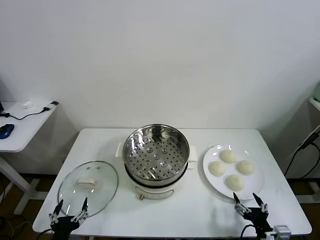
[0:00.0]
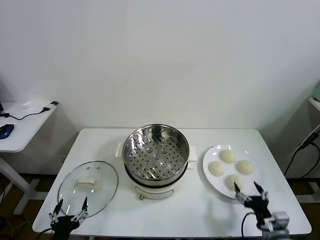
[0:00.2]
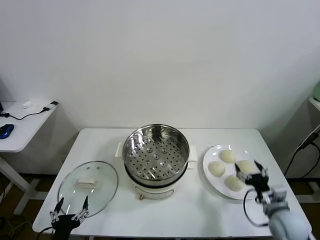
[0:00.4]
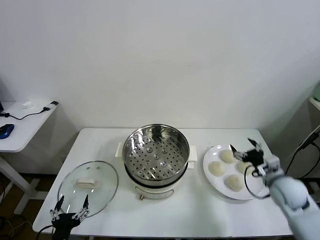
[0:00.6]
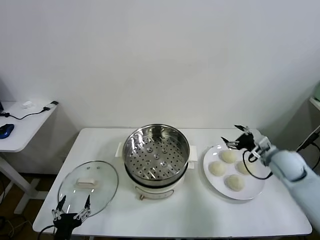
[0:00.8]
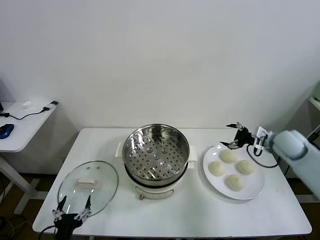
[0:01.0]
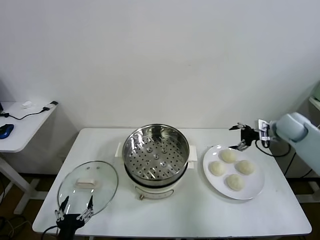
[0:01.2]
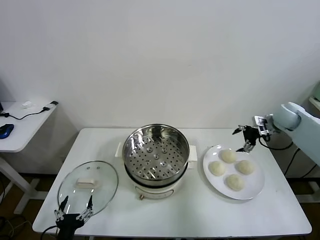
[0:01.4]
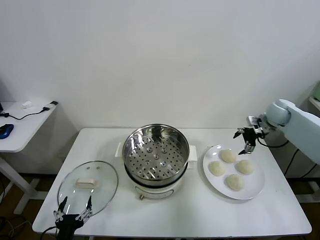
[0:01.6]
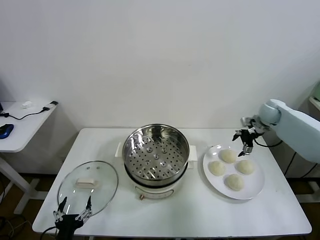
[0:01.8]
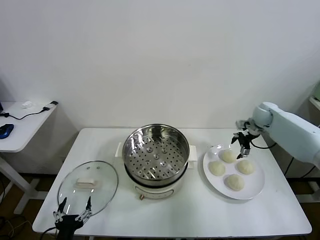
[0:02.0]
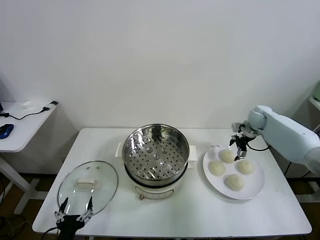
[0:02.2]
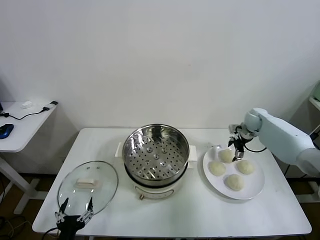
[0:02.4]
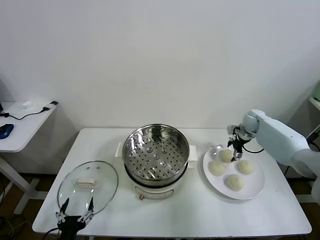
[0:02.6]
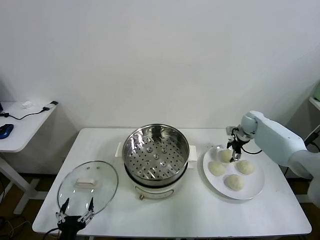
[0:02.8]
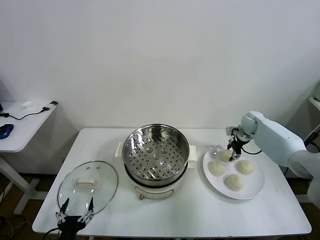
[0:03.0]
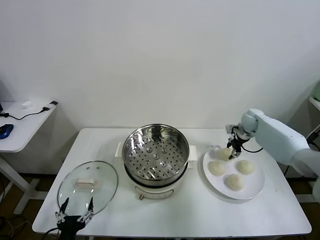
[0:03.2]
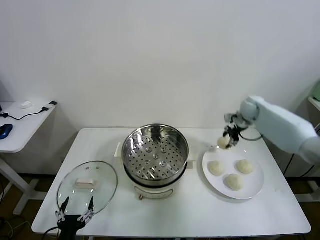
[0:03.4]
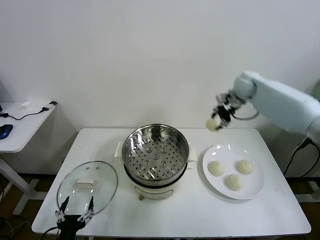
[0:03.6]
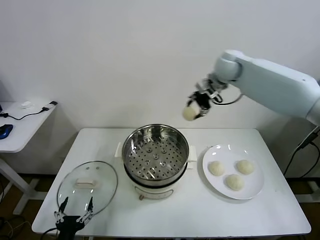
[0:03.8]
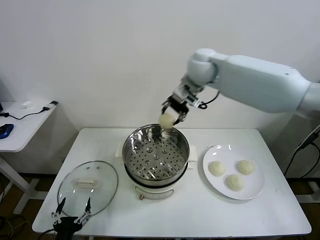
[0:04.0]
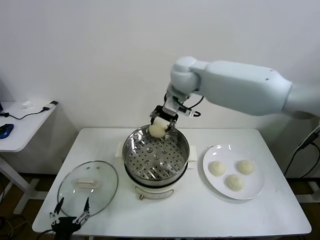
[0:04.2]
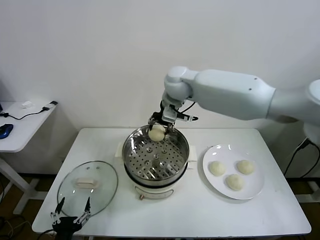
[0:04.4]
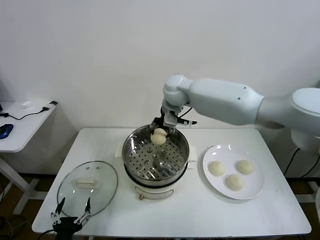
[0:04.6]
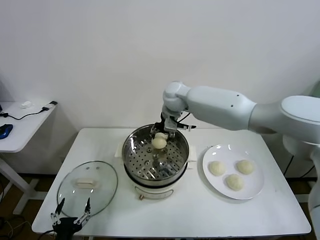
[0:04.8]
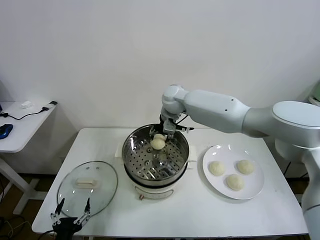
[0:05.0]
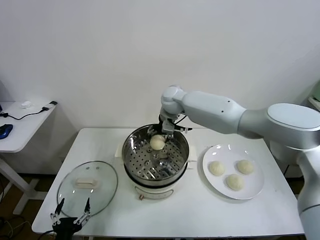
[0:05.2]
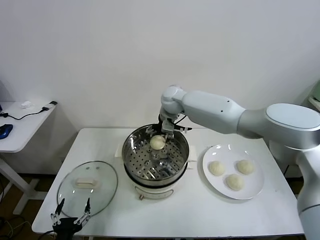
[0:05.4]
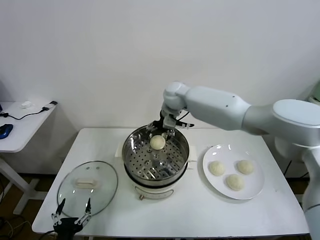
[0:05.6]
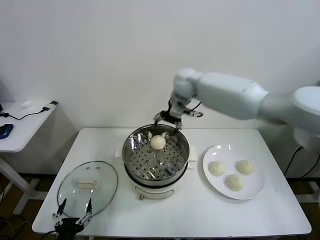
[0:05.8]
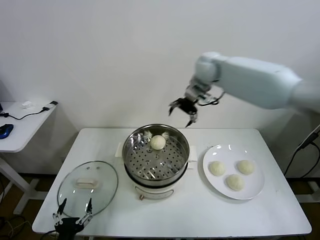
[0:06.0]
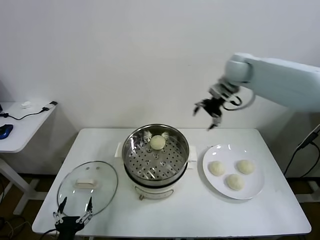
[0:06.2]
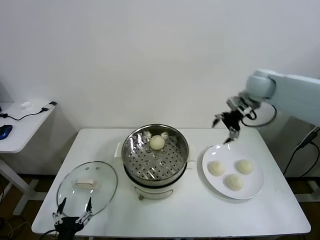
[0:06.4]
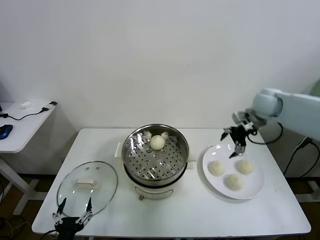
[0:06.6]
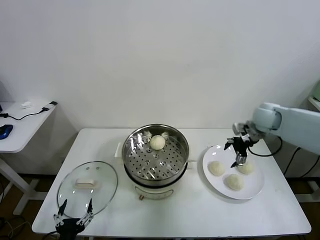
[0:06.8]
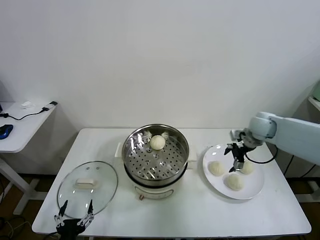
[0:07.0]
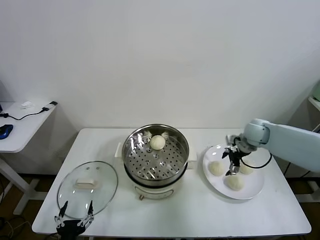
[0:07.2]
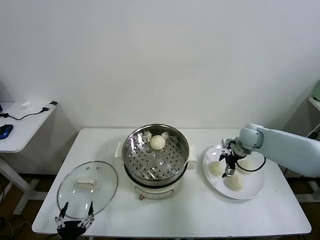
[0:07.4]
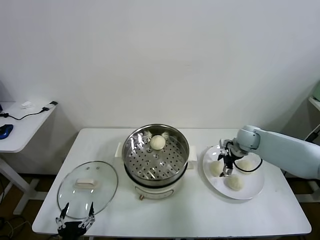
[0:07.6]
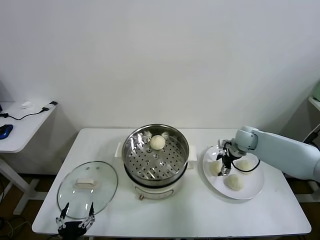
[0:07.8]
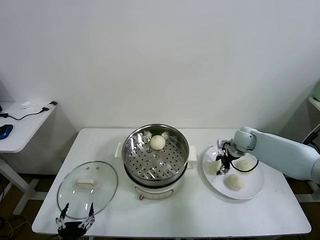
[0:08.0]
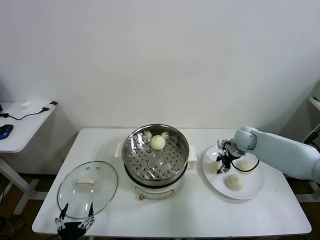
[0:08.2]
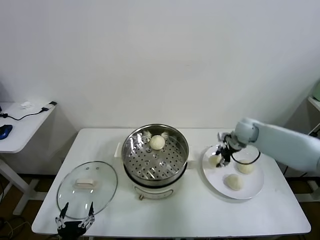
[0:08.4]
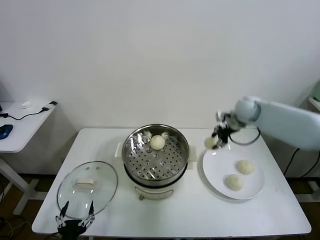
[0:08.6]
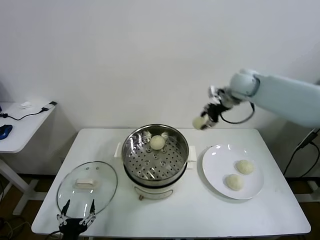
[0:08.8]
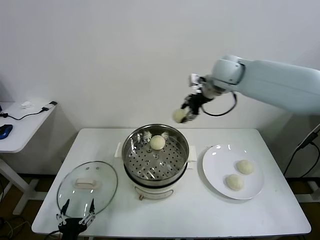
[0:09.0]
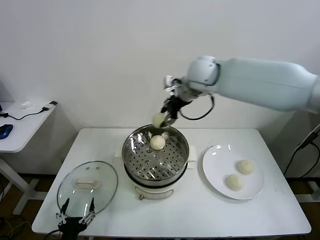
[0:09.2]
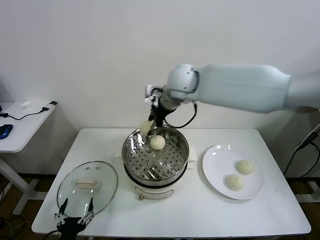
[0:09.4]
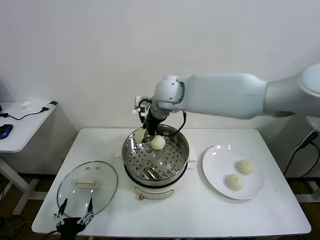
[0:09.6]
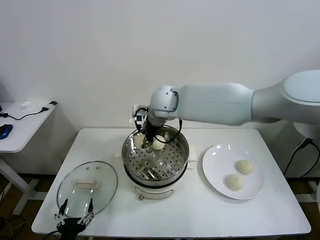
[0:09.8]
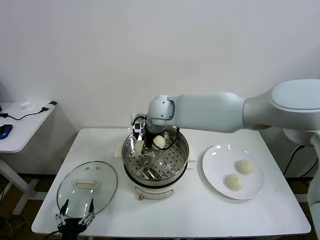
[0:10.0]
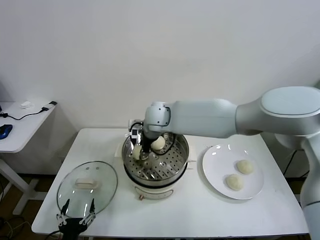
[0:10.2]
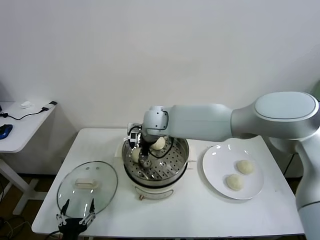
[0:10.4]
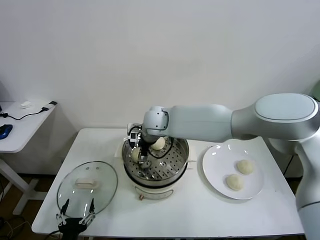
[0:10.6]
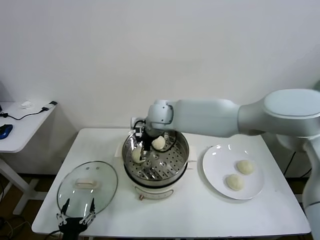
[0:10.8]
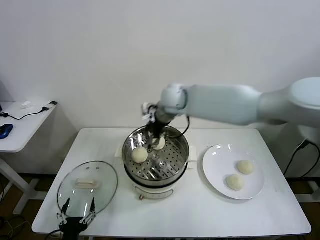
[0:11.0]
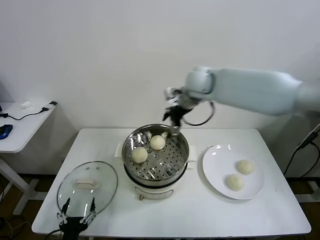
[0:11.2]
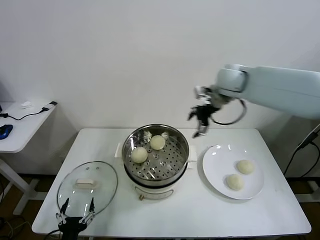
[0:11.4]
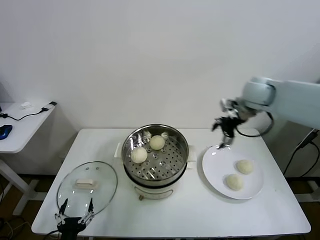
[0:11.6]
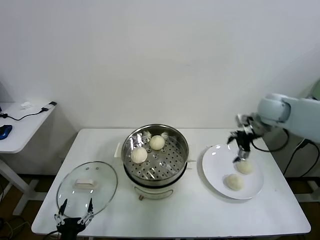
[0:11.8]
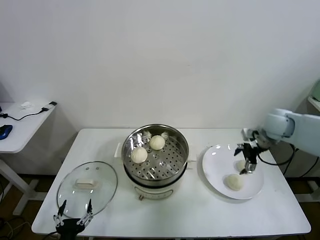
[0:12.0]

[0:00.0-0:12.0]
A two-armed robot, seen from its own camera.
Task of the whole recording: take steamed baozi put them in steamer.
Step, 0.0 to 3.0 s: Grasp the baozi in the plate with right gripper.
Step, 3.2 to 5.6 s: Place the baozi on the steamer with right gripper.
Step, 5.8 to 8.0 s: Grasp the baozi in the plate with right gripper.
Step, 8.2 to 10.6 s: Place the baozi on the steamer with right gripper.
1.6 to 3.0 s: The right gripper shifts approximately 10 cm downward, and closes up.
3.0 to 4.4 s: The right gripper heads to the left and upward, covering about 40 cm.
4.4 to 6.0 s: The right gripper shifts about 10 cm to the right and forward, travels downward and back again, approximately 10 cm each way, and opens up.
6.0 to 7.6 s: The right gripper is displaced downward and to the right by about 30 cm.
7.6 to 9.0 s: The right gripper shifts about 30 cm upward and to the left, and closes its fingers.
9.0 to 10.4 s: The right gripper moves to the left and downward, about 25 cm.
10.4 to 12.0 s: The right gripper moves to the right, roughly 40 cm, and opens.

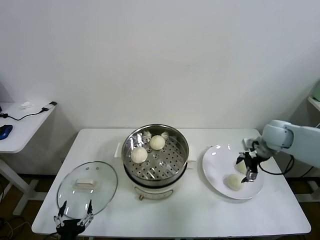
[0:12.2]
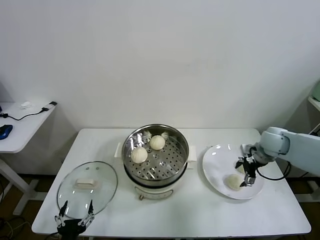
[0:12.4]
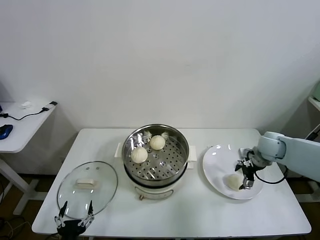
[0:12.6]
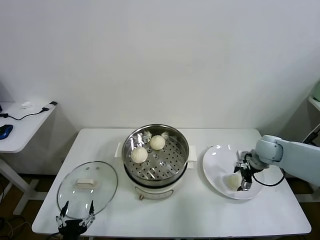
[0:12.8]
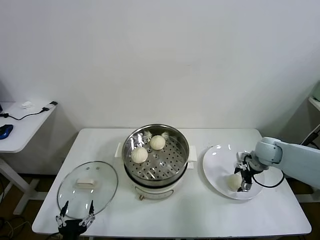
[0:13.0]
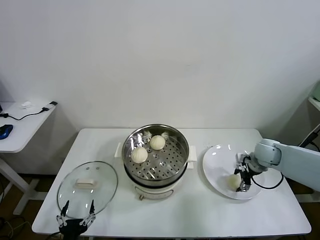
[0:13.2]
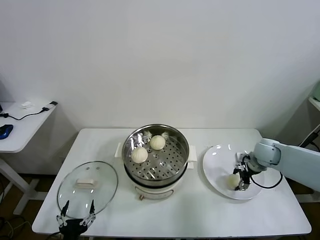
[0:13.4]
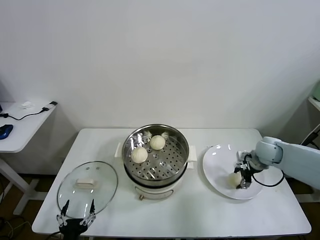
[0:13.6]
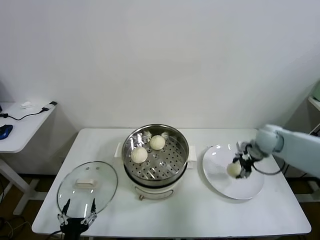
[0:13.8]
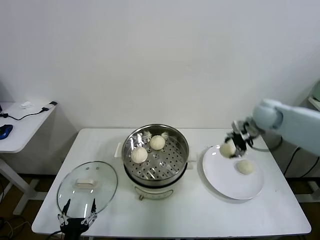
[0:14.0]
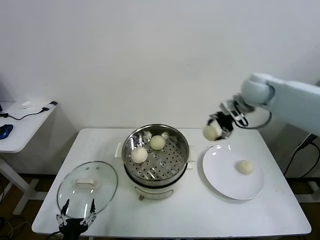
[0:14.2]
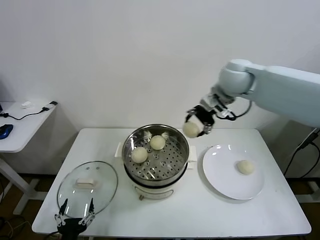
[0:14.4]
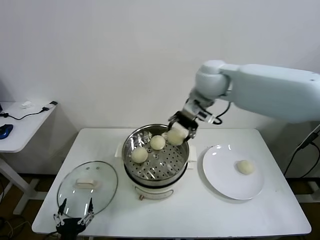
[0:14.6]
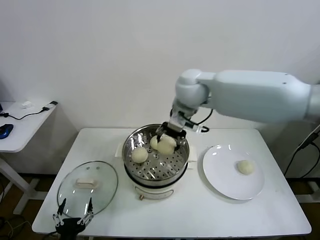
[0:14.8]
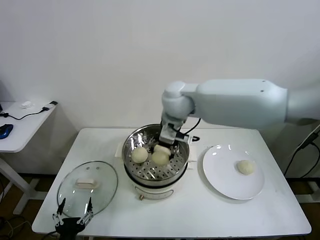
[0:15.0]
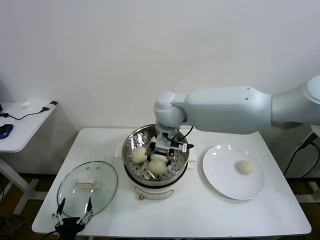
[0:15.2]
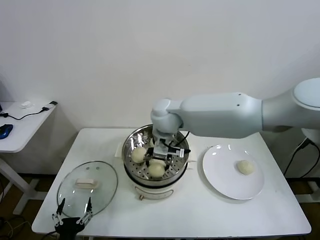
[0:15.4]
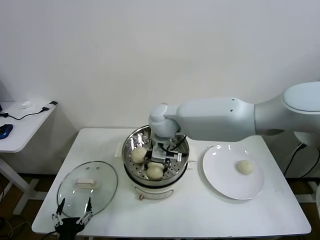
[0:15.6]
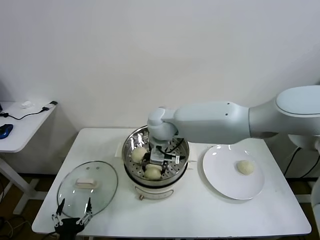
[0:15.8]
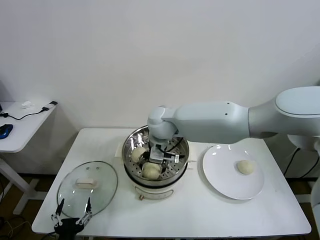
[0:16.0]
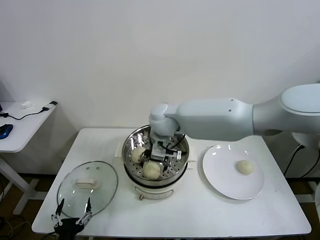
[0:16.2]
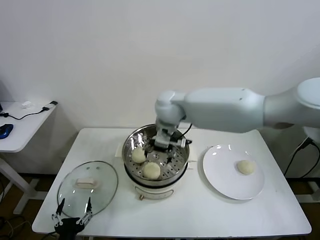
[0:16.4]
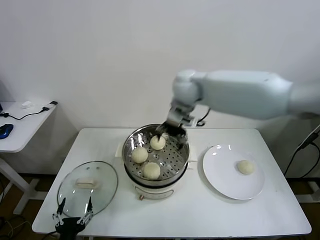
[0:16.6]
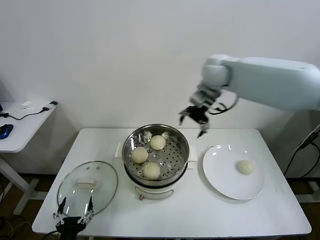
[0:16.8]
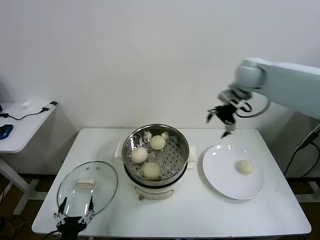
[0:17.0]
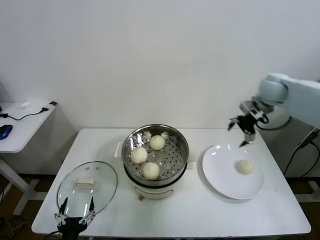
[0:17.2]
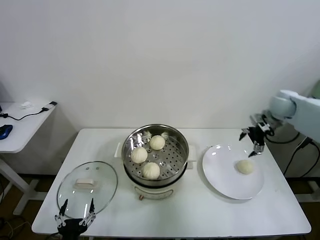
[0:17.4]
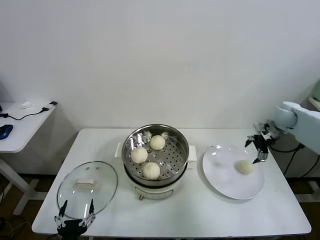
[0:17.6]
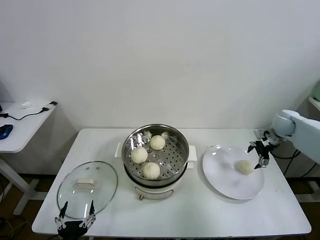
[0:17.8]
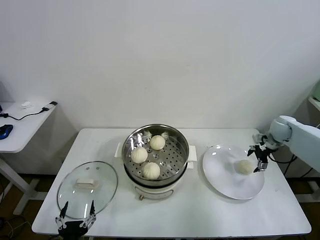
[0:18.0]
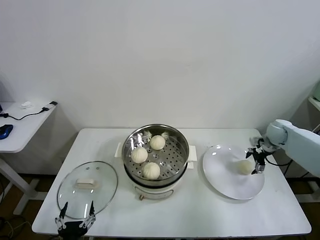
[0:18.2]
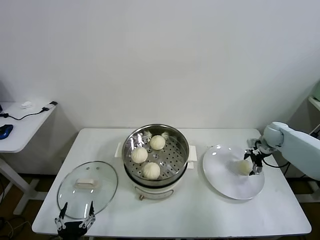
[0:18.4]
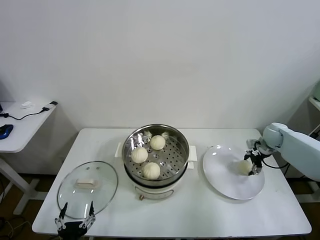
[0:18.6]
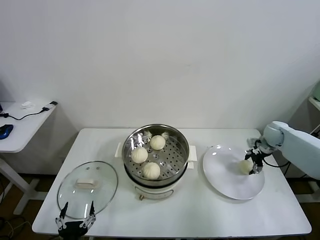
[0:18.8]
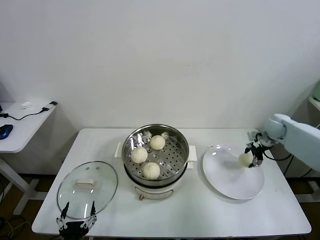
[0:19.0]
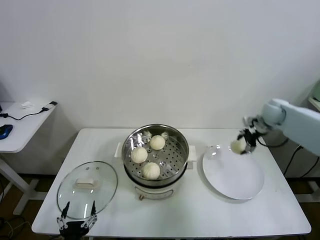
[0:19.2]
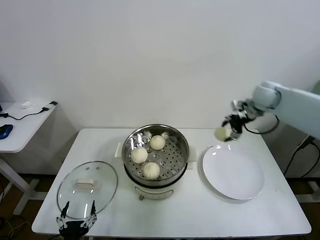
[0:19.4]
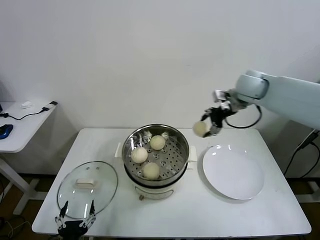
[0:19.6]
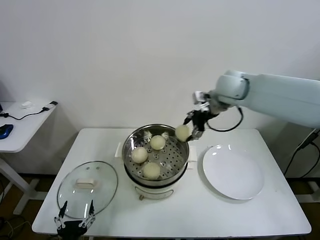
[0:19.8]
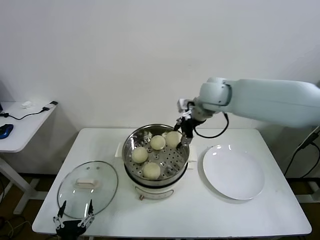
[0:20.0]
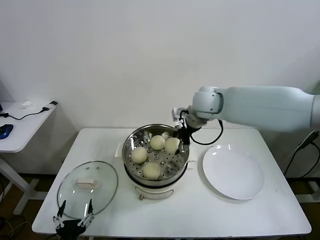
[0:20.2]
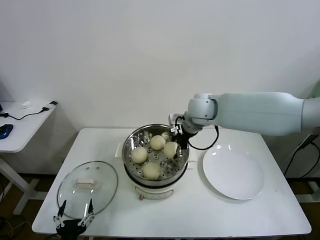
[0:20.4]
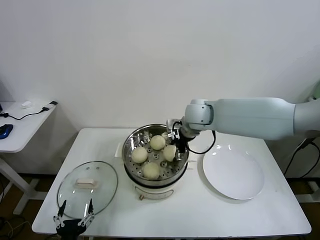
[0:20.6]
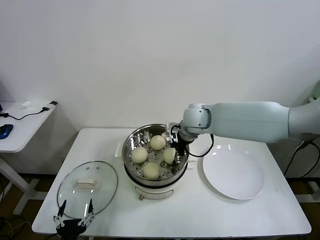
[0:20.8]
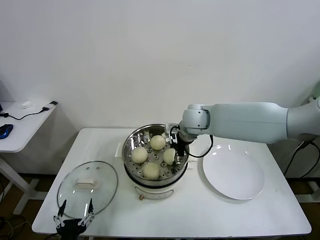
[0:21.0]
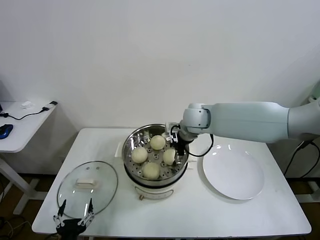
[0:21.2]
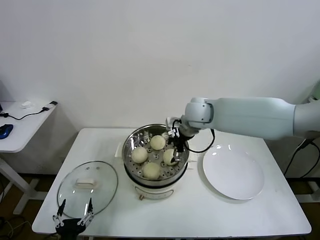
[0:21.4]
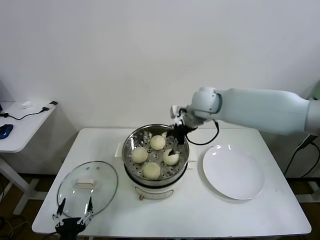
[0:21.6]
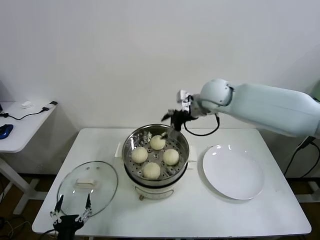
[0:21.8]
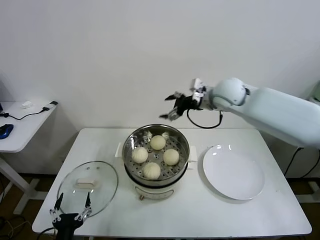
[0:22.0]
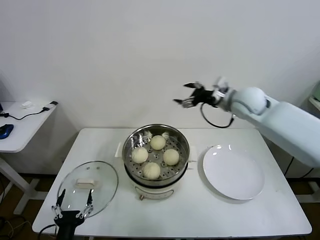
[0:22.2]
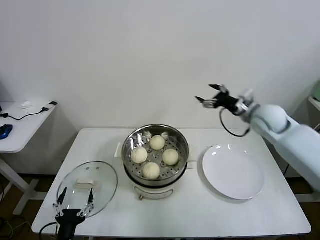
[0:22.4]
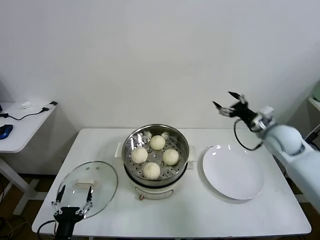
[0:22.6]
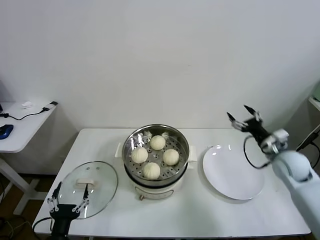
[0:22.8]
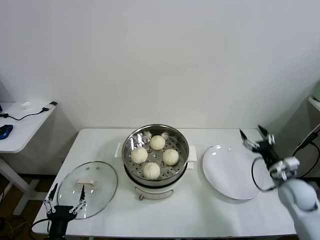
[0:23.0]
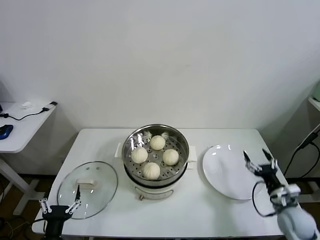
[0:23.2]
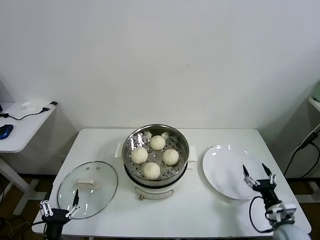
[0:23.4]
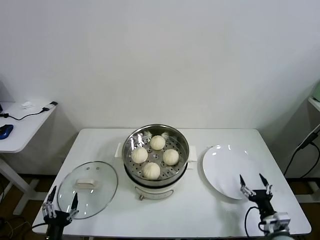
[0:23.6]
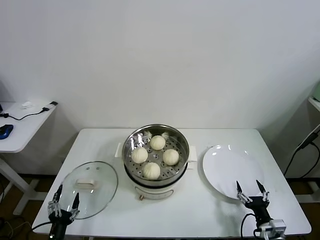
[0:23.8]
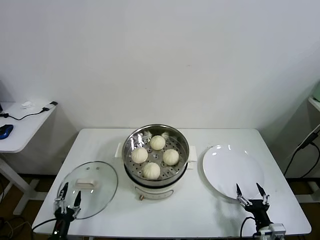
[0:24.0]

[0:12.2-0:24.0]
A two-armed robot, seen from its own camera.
Task of the whole recording: take steamed baozi put them in steamer.
Step, 13.4 to 16.2 s: Place the baozi on the steamer with right gripper.
Step, 16.6 to 18.6 s: Grasp the baozi in the plate with right gripper.
Step, 18.8 to 21.2 s: Place the baozi on the steamer with right gripper.
12.2 to 13.6 s: The right gripper moves downward, approximately 10 cm, and closes.
13.6 to 15.2 s: The right gripper goes approximately 40 cm to the left and upward.
15.2 to 16.6 s: The right gripper moves approximately 5 cm, and opens up.
16.6 to 18.2 s: The right gripper moves to the right and downward, about 40 cm.
18.2 to 19.6 s: The right gripper travels upward and to the left by some 25 cm, and closes up.
19.6 to 21.0 s: The right gripper moves to the left and downward, approximately 20 cm.
21.0 to 22.6 s: The right gripper is displaced to the right by about 25 cm, and opens.
22.6 to 24.0 s: The left gripper is displaced downward and to the left by approximately 10 cm. The right gripper travels backward and downward by some 40 cm.
